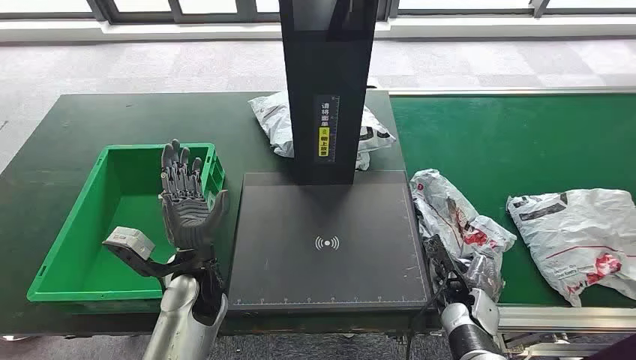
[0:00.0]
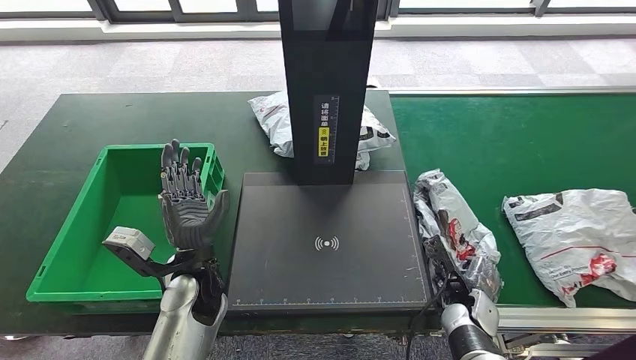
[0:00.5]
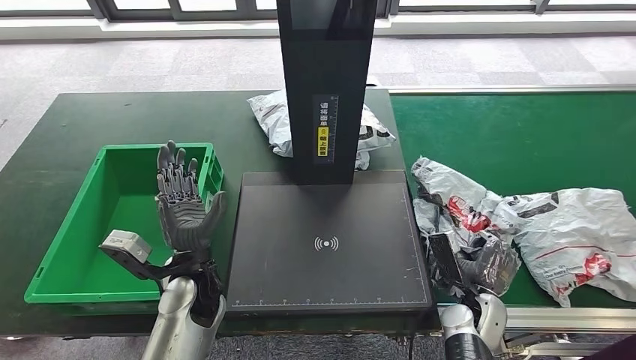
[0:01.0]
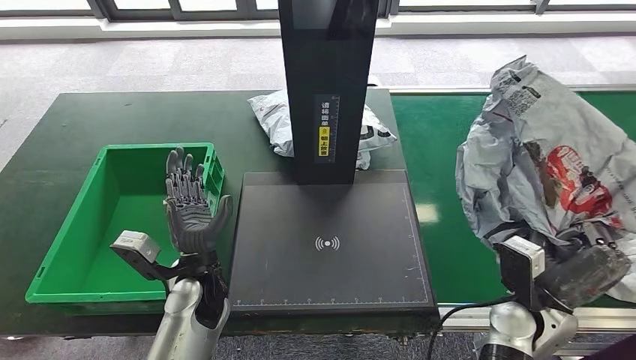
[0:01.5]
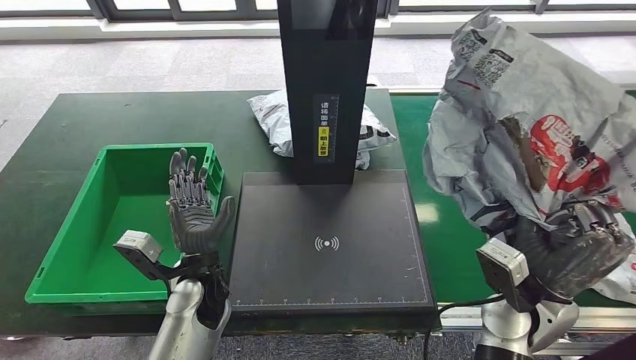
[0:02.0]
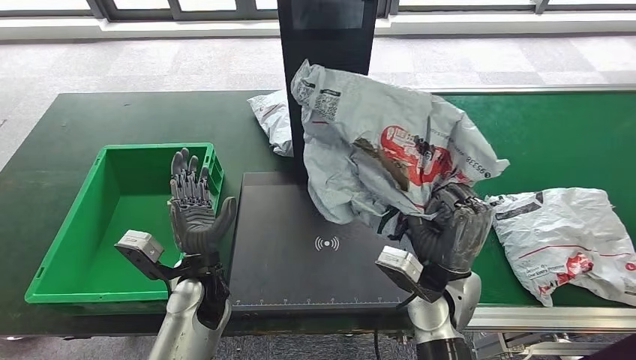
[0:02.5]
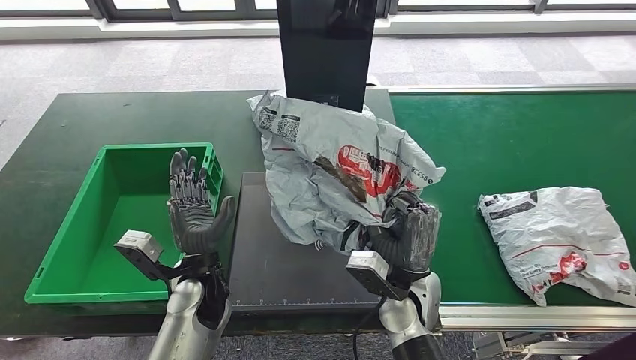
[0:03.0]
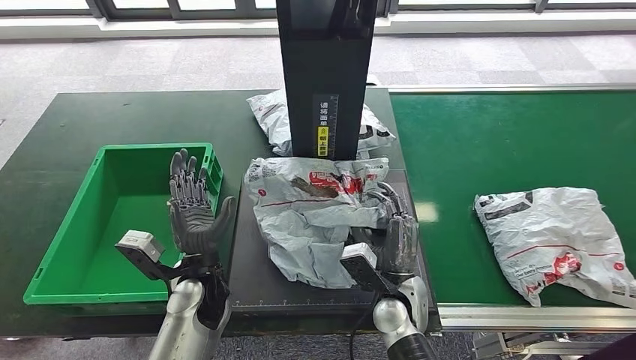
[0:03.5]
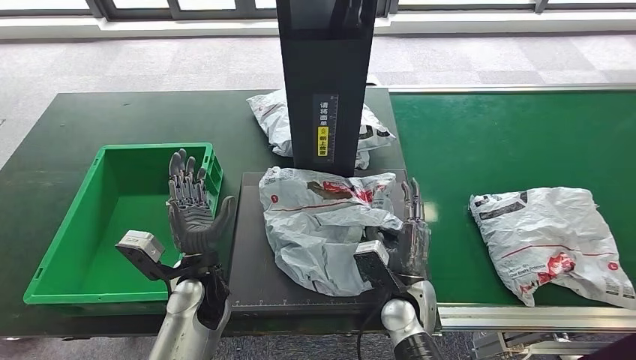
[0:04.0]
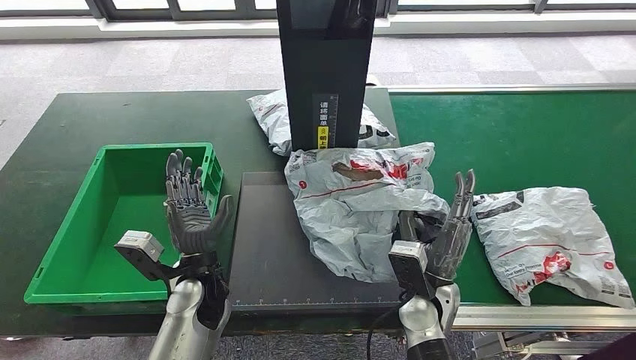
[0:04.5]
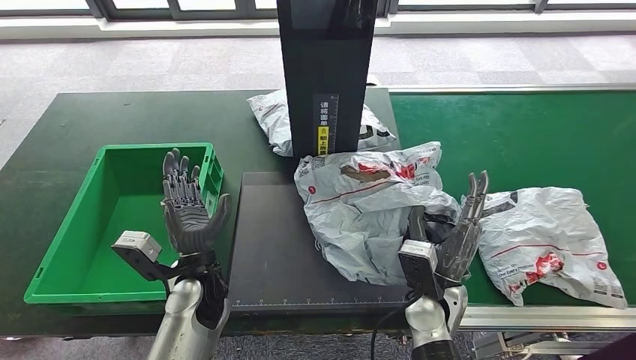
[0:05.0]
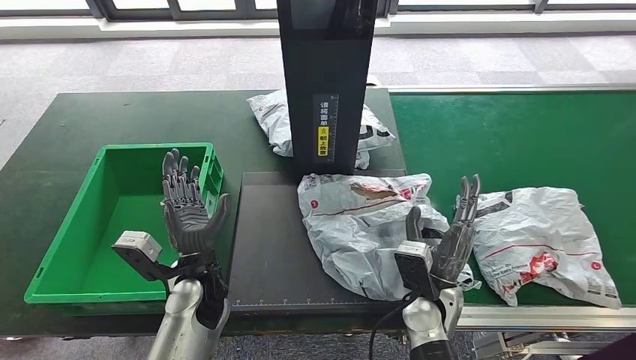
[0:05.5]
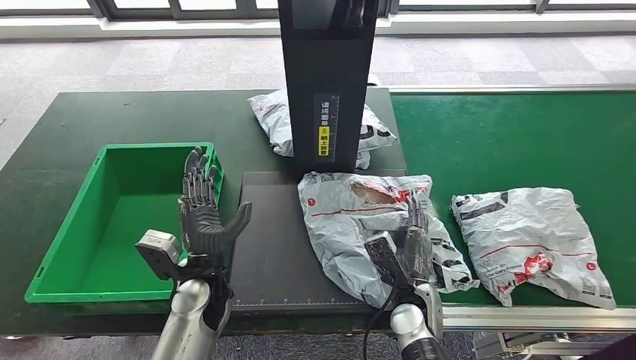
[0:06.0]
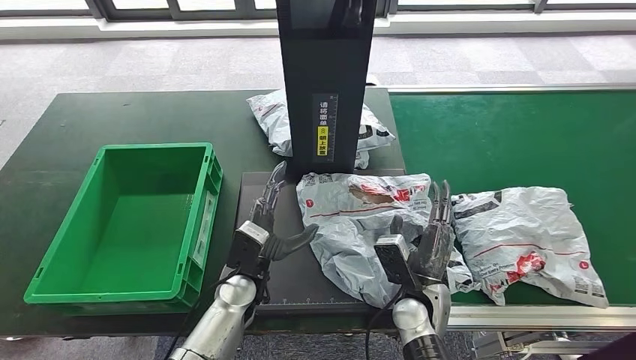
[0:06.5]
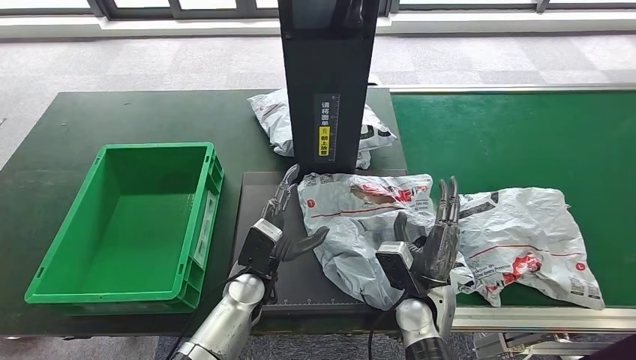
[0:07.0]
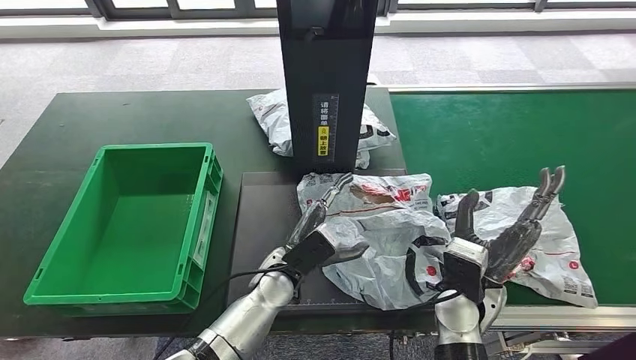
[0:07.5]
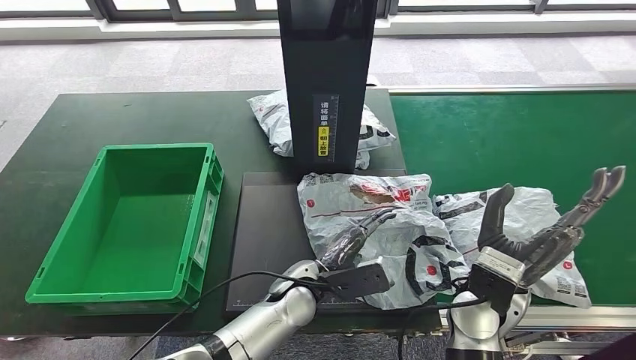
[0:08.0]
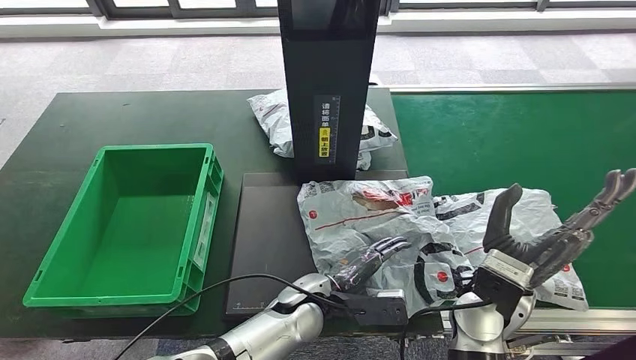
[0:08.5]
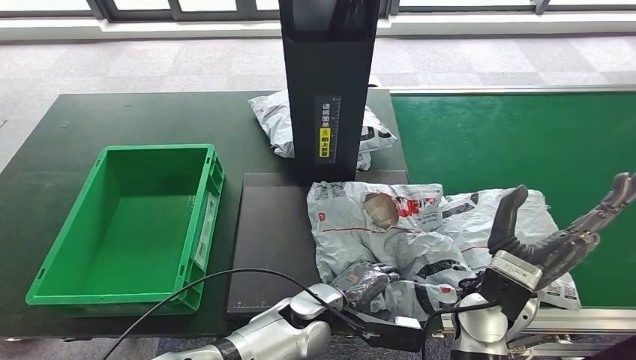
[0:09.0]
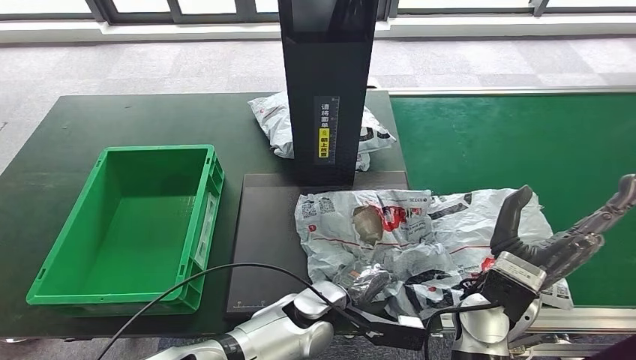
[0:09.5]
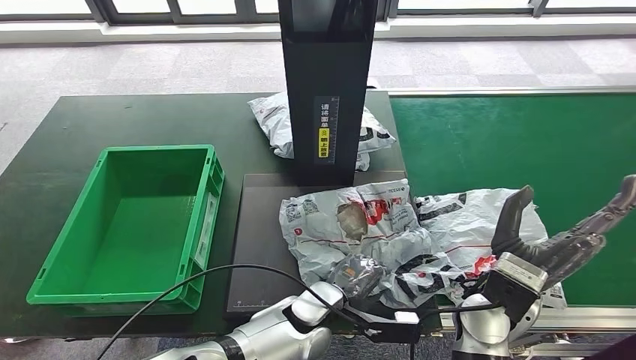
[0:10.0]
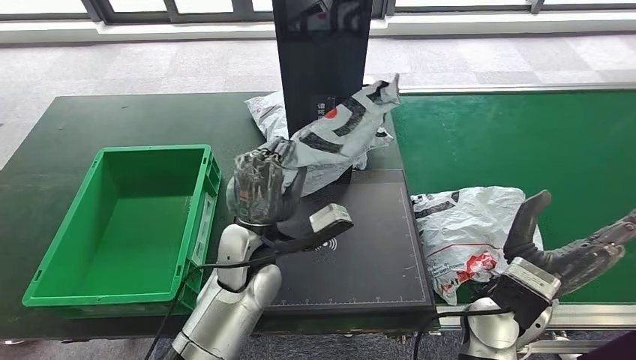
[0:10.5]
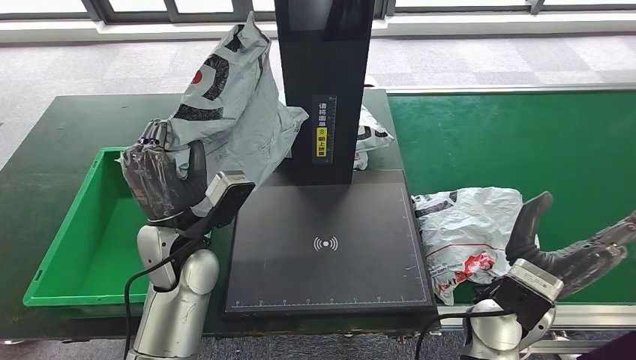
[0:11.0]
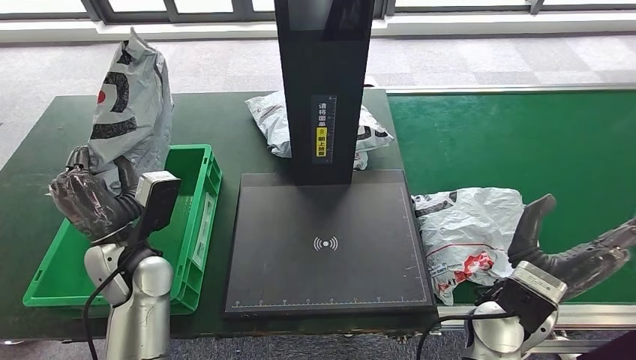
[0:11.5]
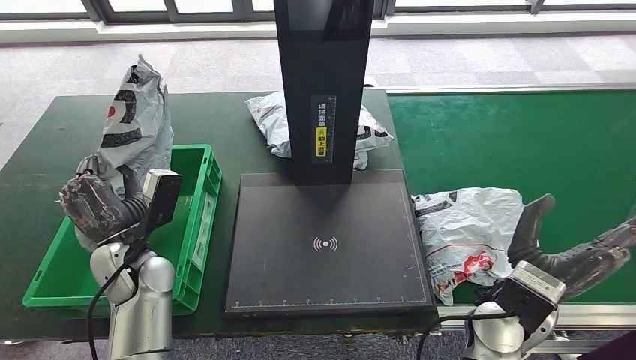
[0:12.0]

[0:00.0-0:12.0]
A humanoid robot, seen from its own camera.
Step, 0:00.0 to 0:01.0: Take the parcel off the conveyor belt.
Step, 0:01.5 to 0:07.0: Place the parcel onto the inbound machine.
Step, 0:07.5 to 0:10.5: Pick up the parcel from the inbound machine.
0:04.0 to 0:06.0: The hands move only a little.

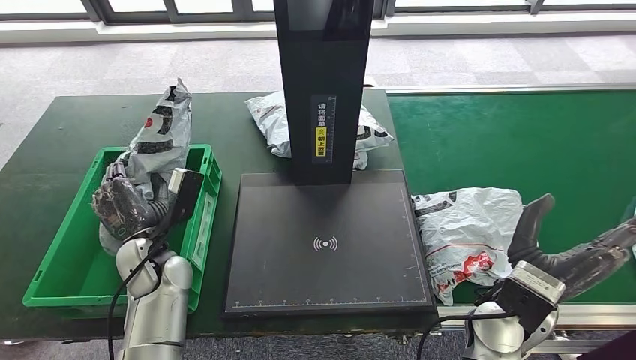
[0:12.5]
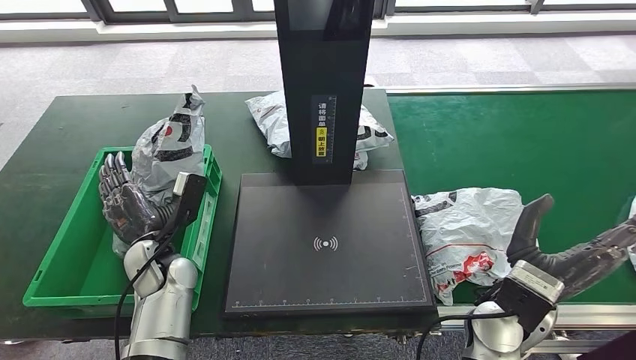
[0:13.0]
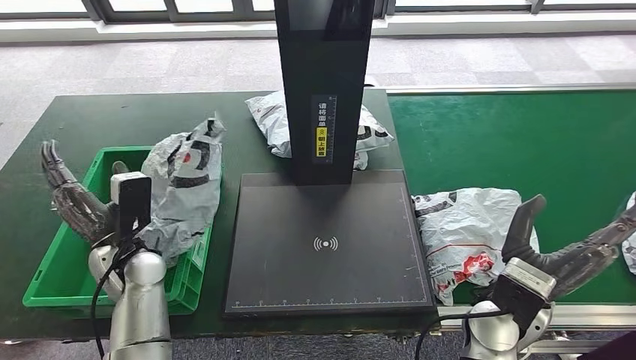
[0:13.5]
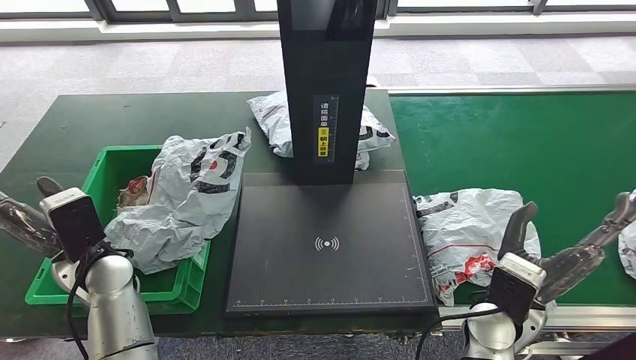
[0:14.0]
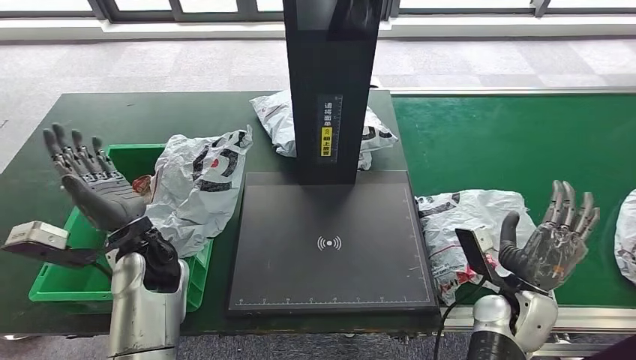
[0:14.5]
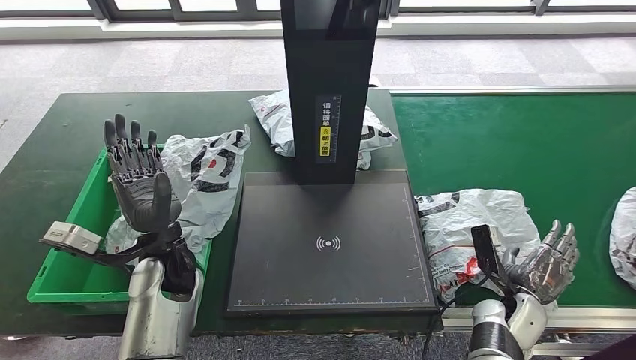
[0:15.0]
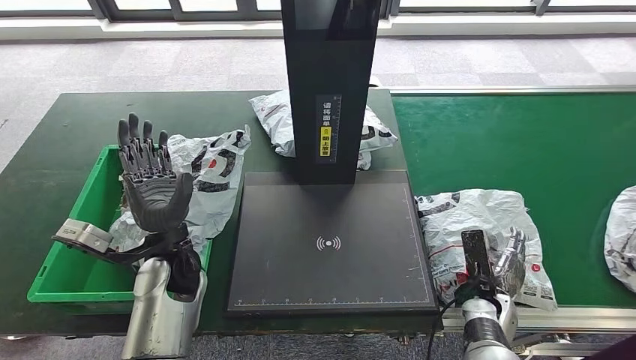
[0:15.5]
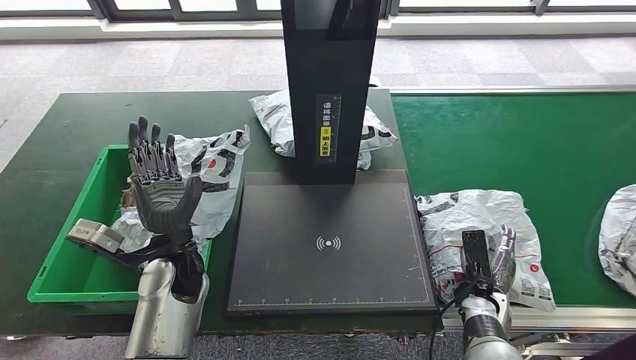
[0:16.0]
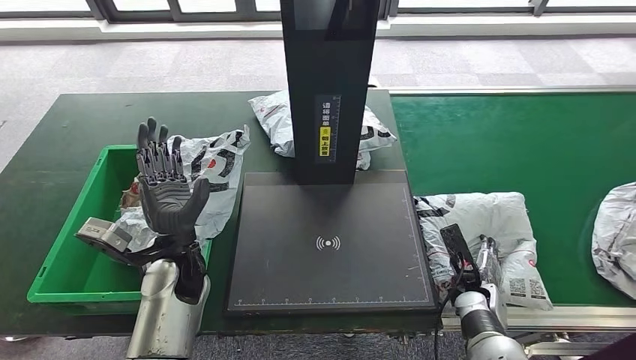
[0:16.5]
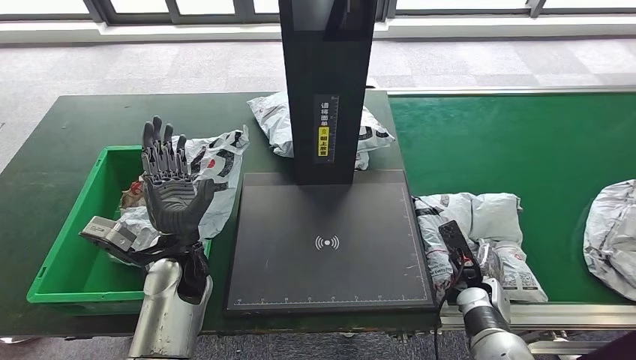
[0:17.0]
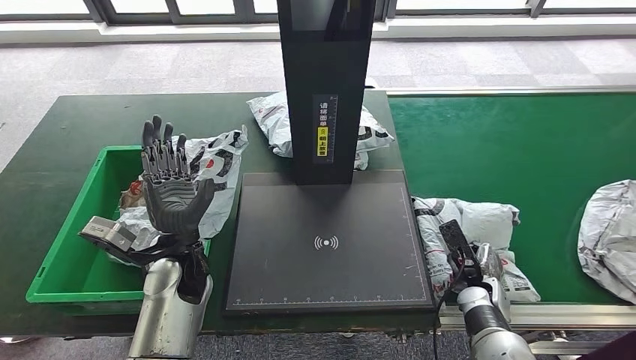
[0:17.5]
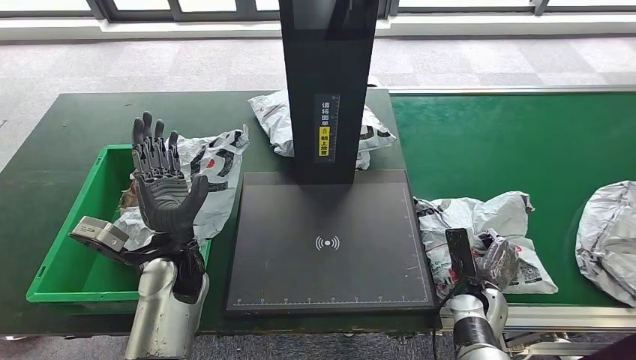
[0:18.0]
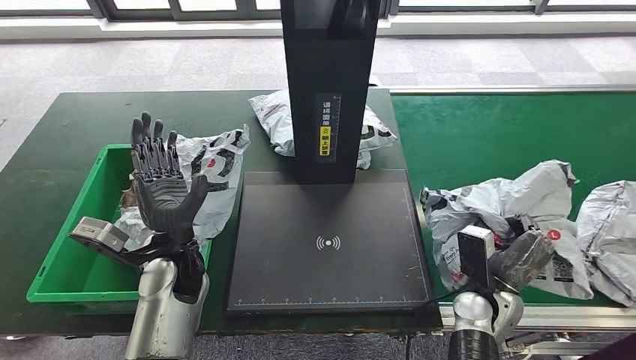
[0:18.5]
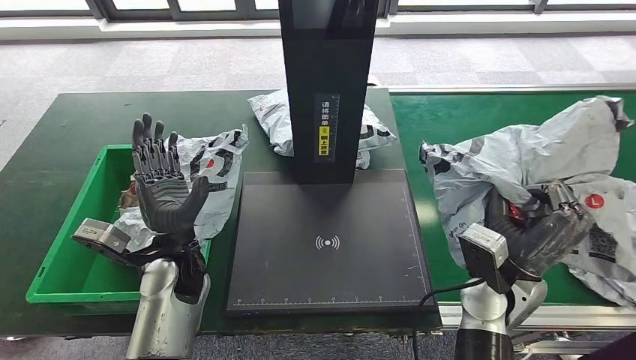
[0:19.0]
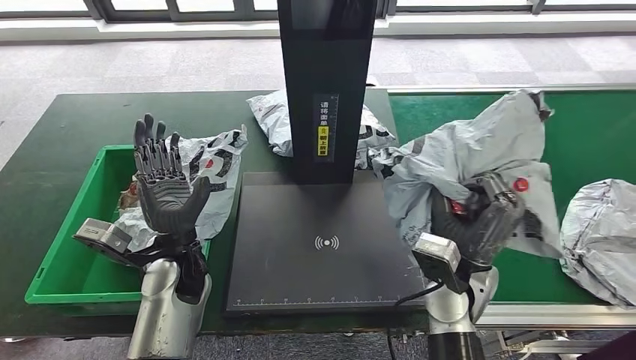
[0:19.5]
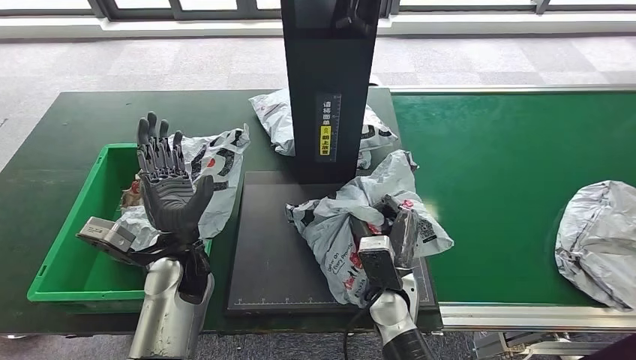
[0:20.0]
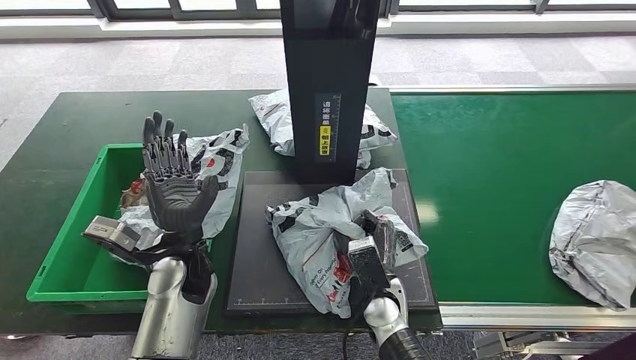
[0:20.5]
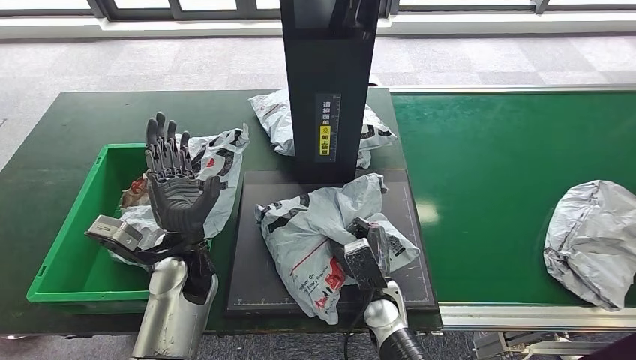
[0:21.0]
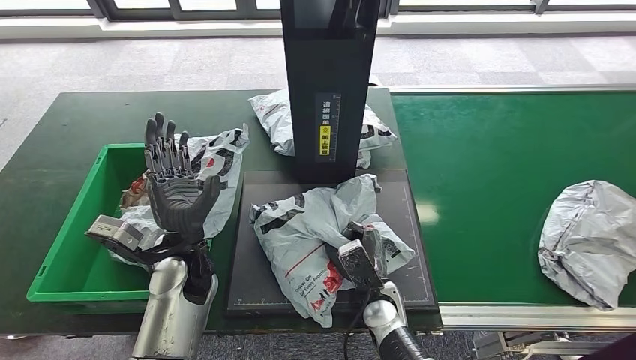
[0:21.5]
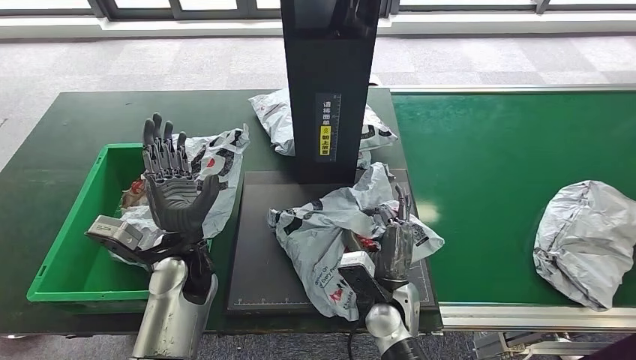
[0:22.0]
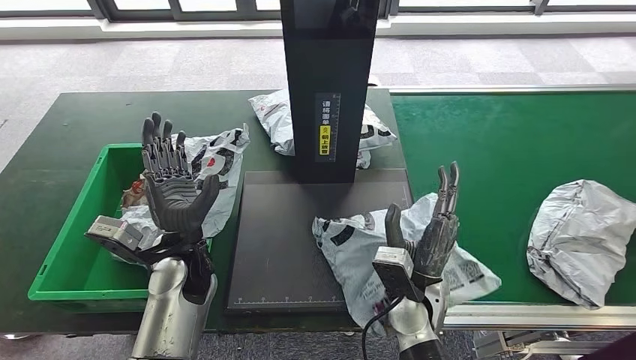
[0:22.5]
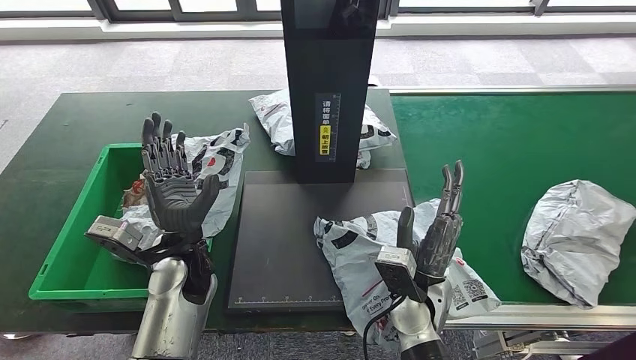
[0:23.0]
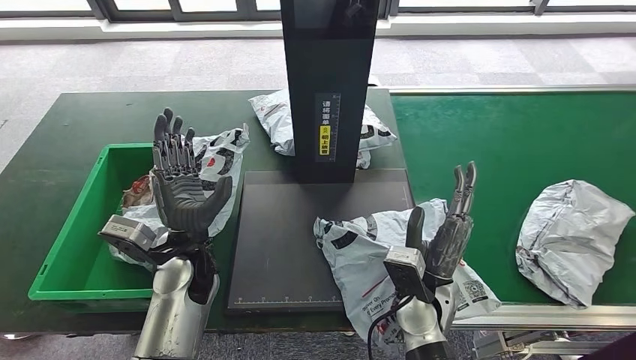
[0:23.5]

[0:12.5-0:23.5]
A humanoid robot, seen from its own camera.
Step, 0:12.5 to 0:14.5: Put the parcel inside the courier box.
Step, 0:17.0 to 0:18.5: Pick up the parcel from the conveyor belt.
0:20.0 to 0:21.5: The right hand goes roughly 5 cm downward.
